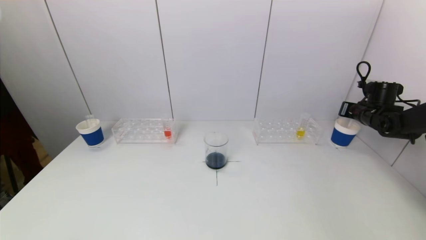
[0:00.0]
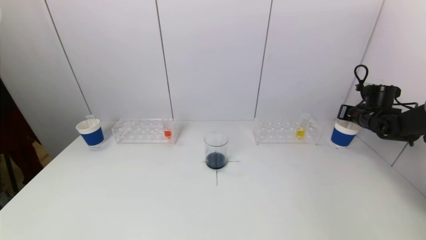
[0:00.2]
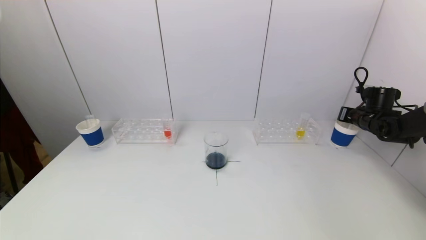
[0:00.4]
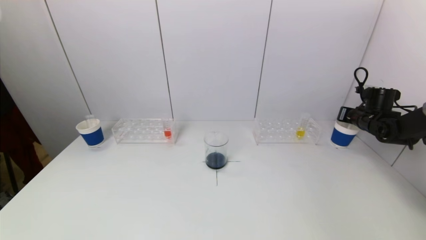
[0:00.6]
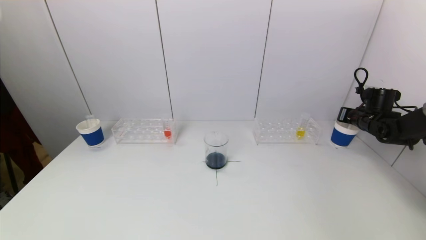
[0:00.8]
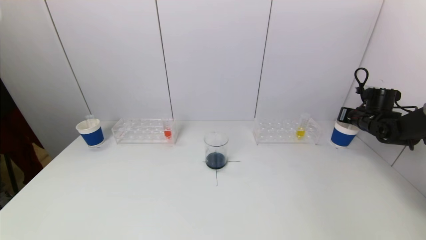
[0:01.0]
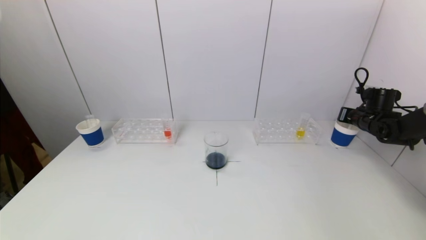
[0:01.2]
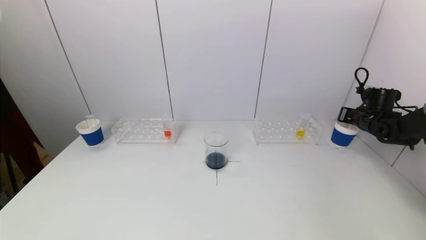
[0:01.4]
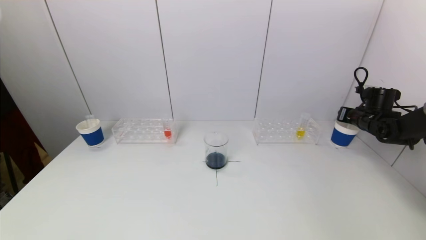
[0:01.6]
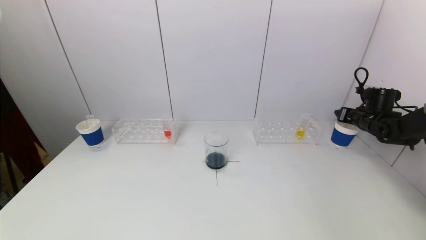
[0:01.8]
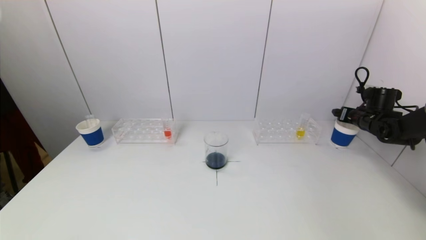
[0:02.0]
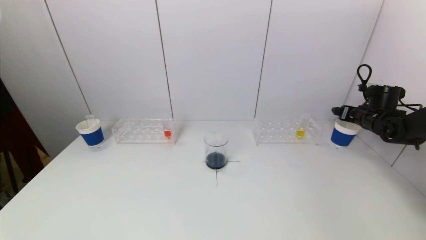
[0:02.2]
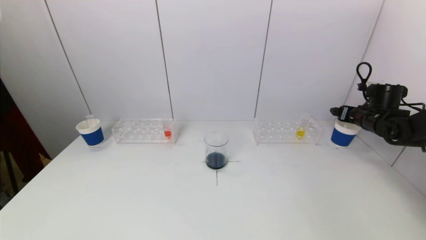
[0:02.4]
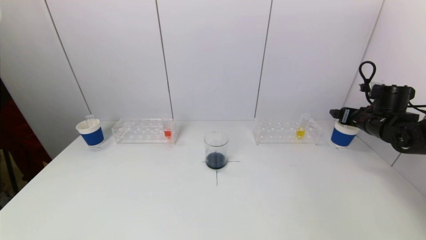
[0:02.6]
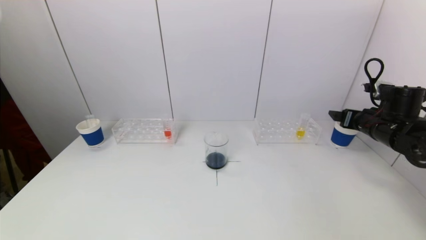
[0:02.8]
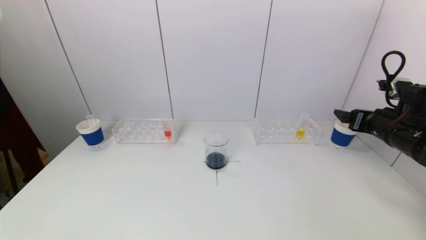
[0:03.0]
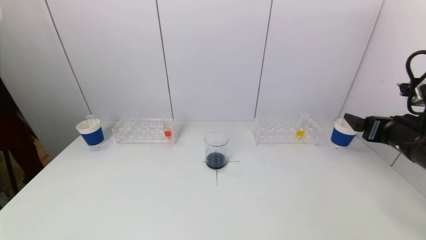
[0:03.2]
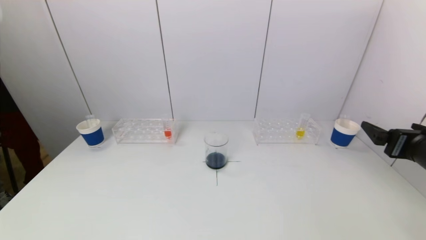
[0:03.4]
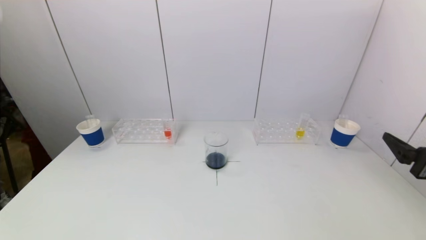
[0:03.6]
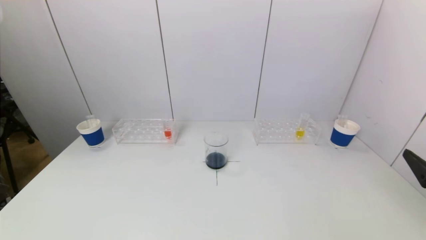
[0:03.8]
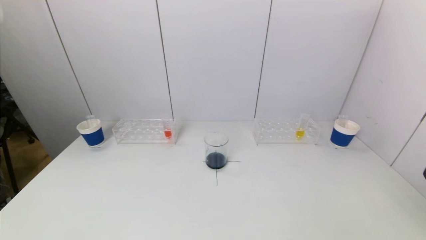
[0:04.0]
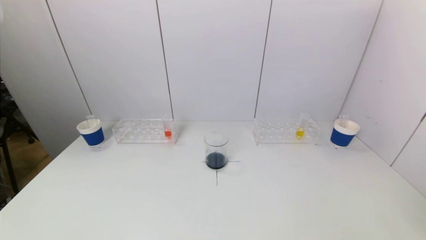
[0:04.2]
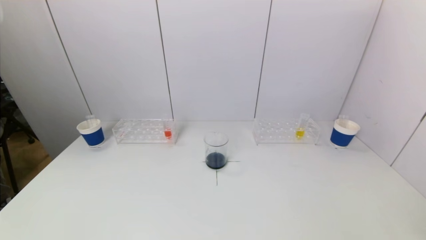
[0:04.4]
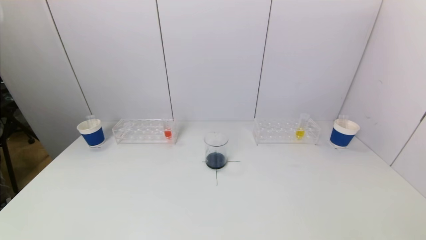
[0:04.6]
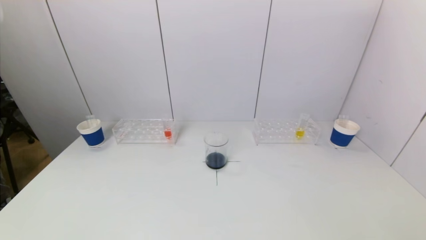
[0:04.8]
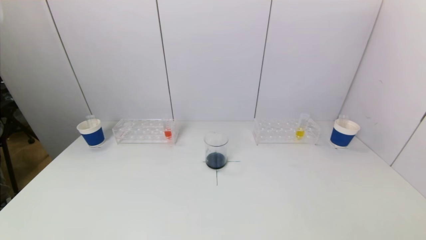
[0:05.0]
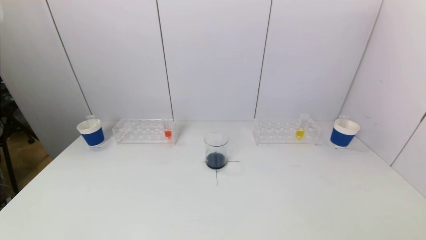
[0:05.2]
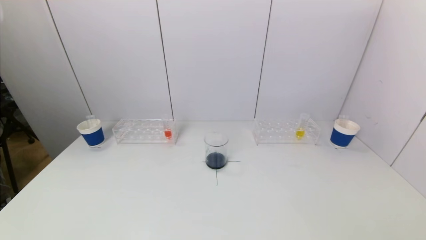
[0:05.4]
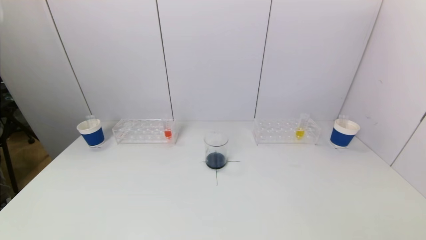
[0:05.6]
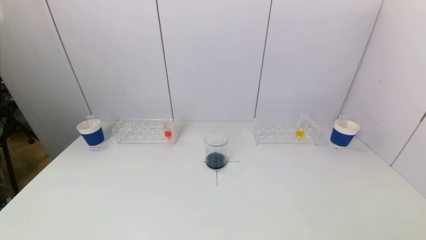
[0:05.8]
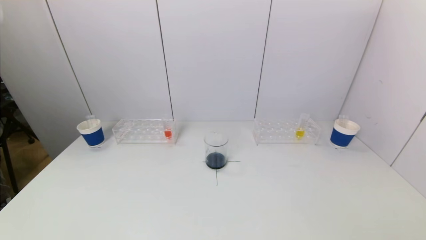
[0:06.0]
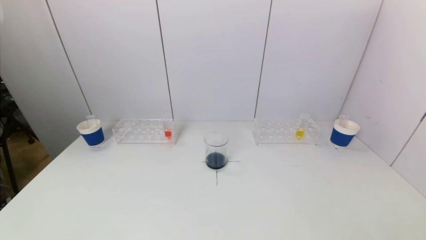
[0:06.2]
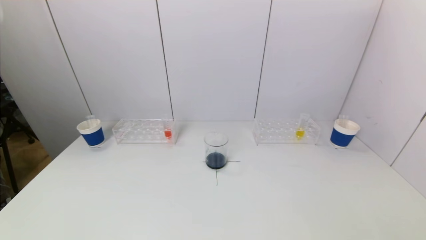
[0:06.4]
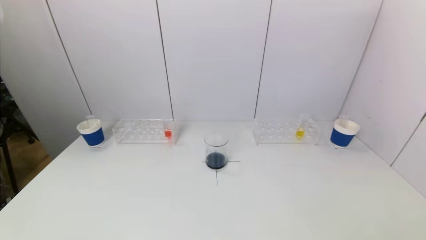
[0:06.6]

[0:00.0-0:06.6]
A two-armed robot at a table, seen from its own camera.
Task of the whole recording: pick up a test tube with pigment on left test tube rack and a test tube with pigment on right test tube rack by grippers and pour them into the beaker.
Step, 0:00.0 to 0:02.0: Place the test tube into the paper cup with the right gripper.
0:00.0 to 0:01.6: There are only small adjustments of the grippers.
0:01.6 to 0:03.2: The right gripper travels backward, to the left and upward by about 25 cm, and opens up.
0:03.2 to 0:05.0: The right gripper travels backward and downward by some 30 cm.

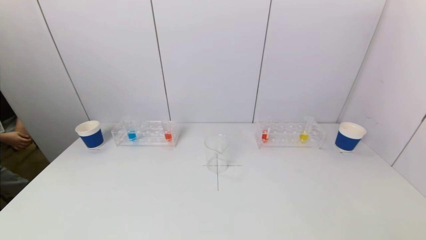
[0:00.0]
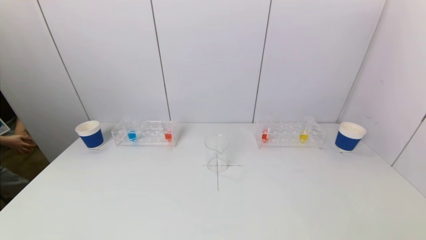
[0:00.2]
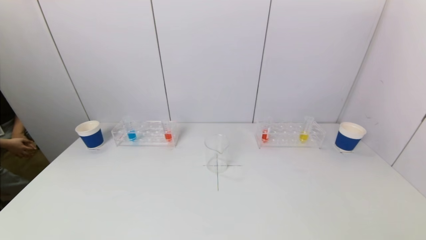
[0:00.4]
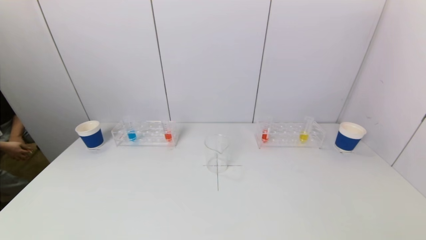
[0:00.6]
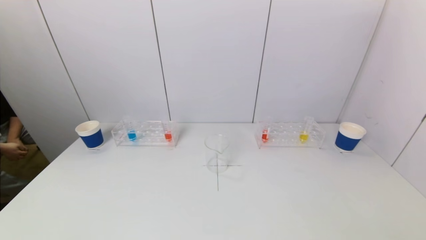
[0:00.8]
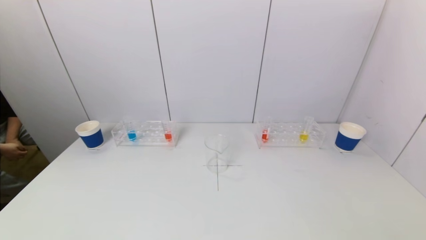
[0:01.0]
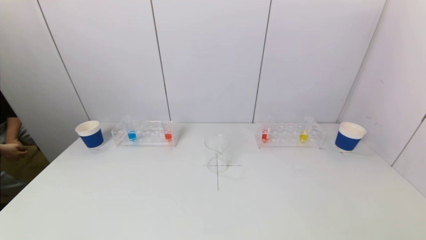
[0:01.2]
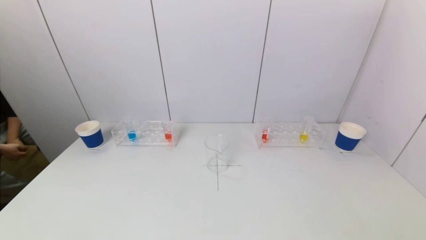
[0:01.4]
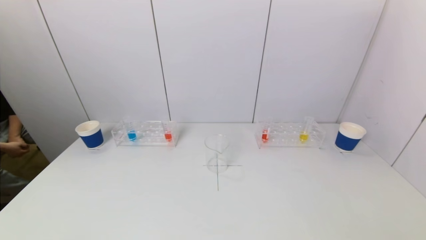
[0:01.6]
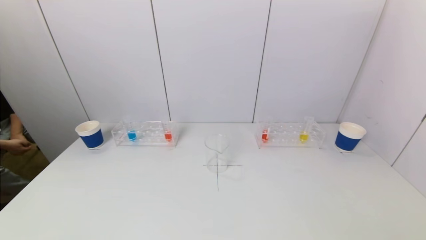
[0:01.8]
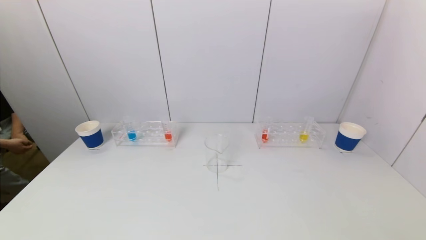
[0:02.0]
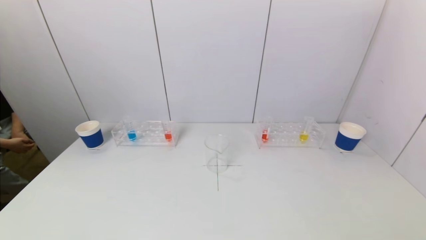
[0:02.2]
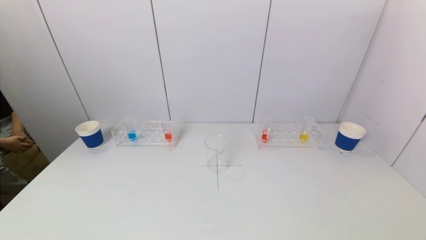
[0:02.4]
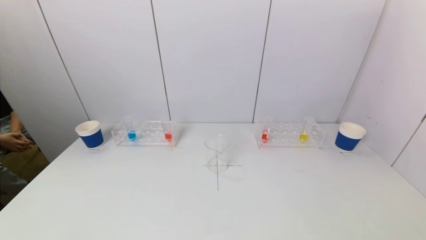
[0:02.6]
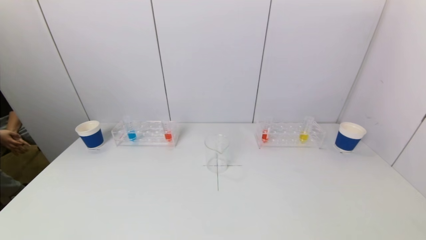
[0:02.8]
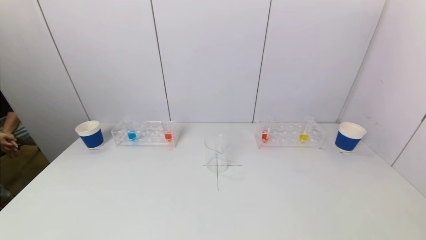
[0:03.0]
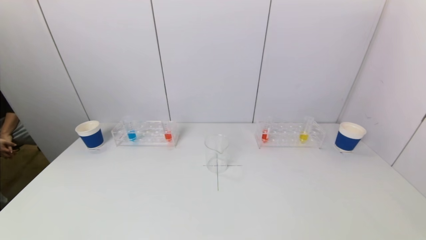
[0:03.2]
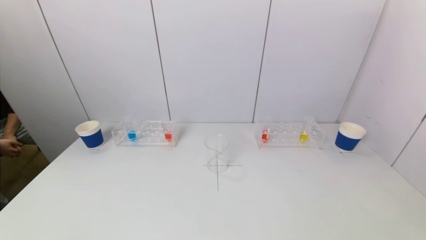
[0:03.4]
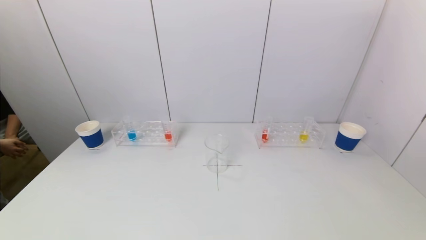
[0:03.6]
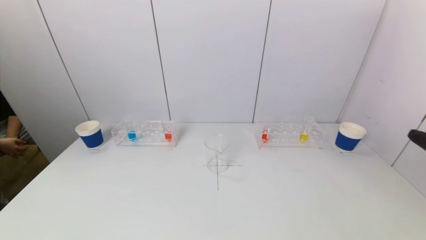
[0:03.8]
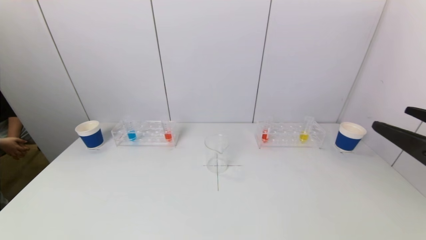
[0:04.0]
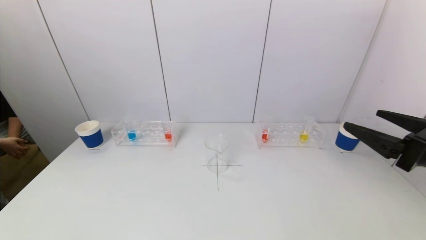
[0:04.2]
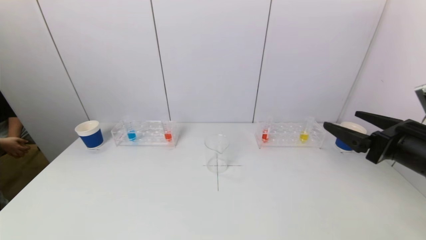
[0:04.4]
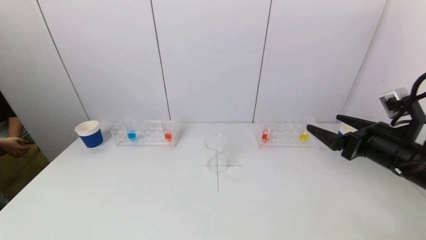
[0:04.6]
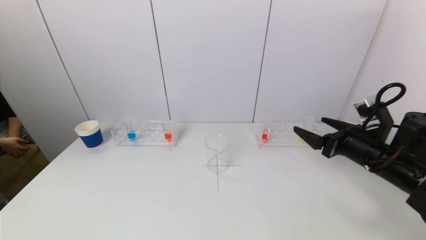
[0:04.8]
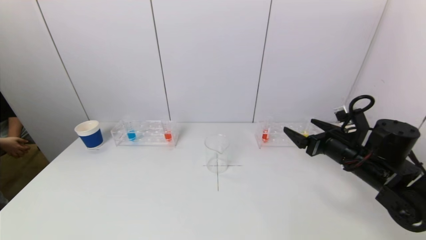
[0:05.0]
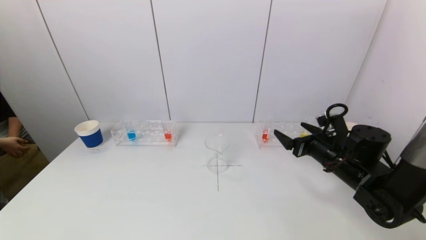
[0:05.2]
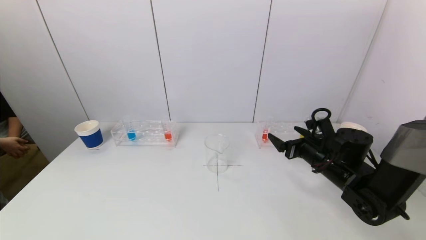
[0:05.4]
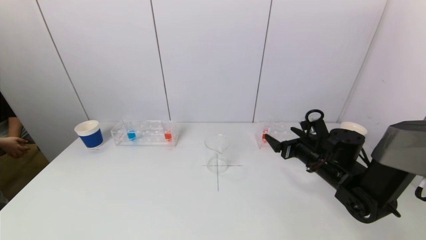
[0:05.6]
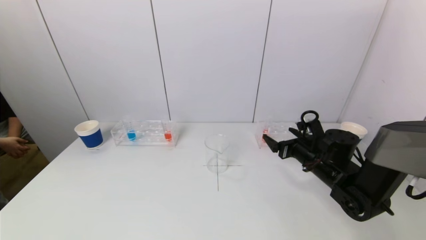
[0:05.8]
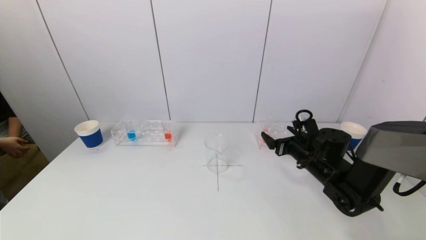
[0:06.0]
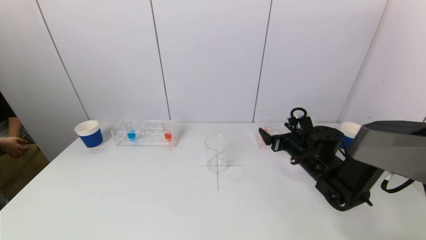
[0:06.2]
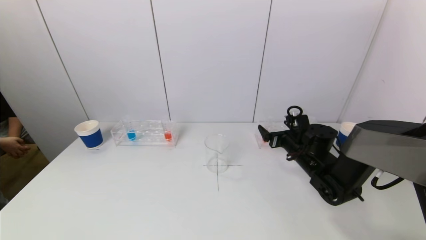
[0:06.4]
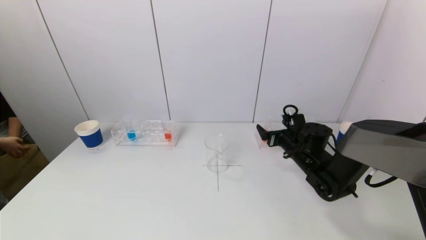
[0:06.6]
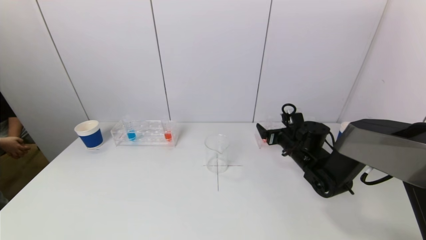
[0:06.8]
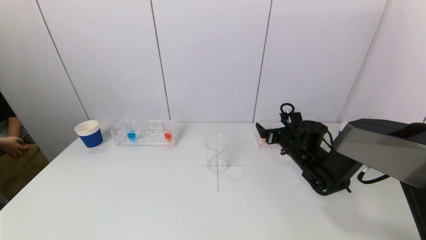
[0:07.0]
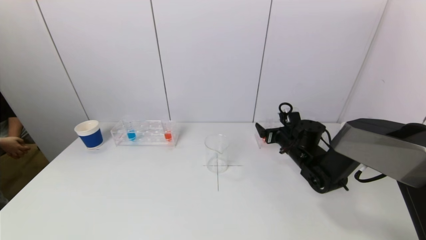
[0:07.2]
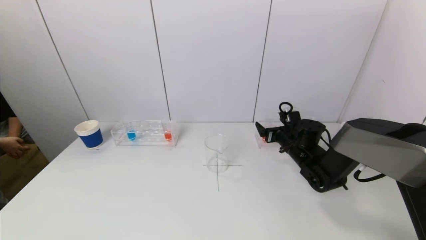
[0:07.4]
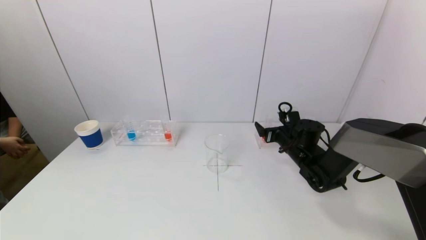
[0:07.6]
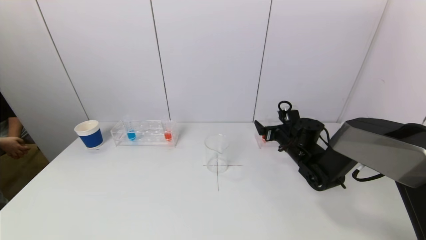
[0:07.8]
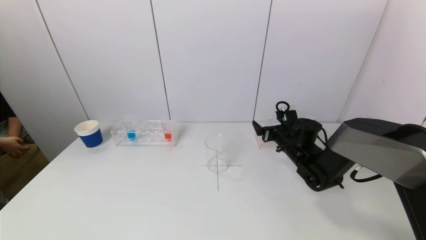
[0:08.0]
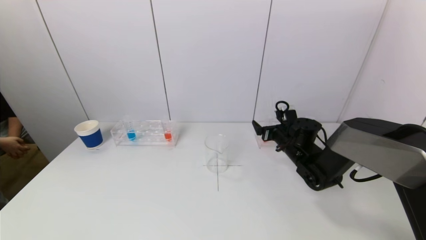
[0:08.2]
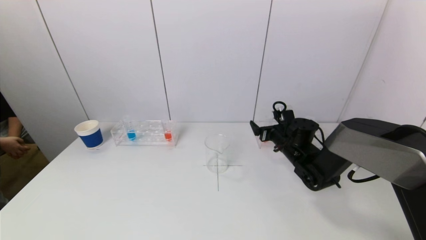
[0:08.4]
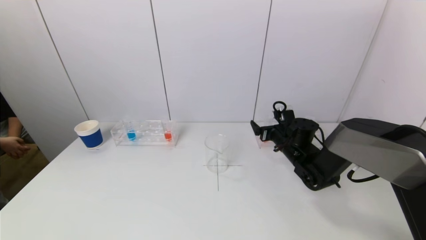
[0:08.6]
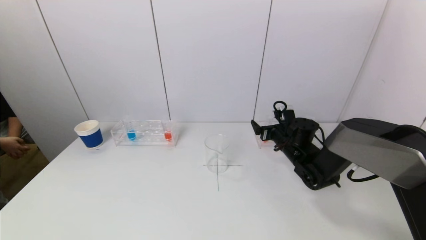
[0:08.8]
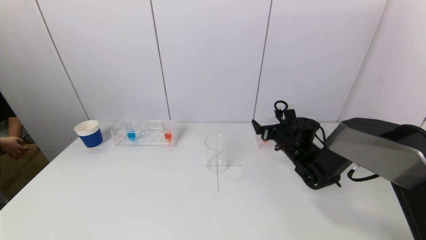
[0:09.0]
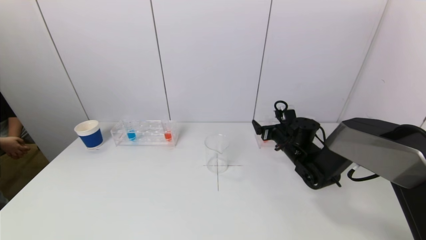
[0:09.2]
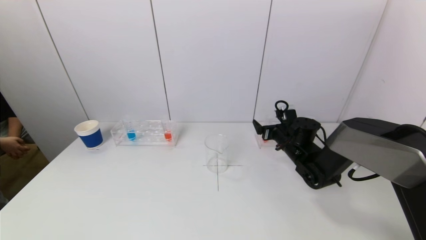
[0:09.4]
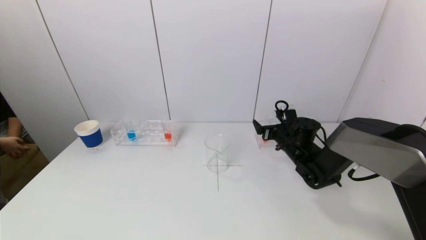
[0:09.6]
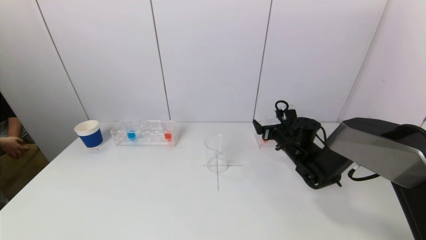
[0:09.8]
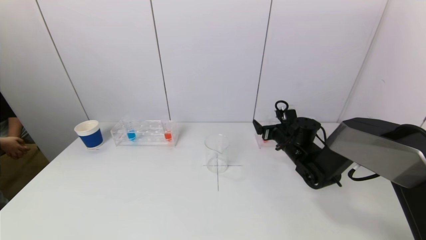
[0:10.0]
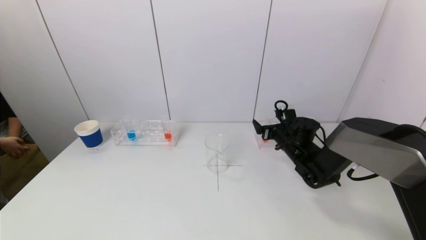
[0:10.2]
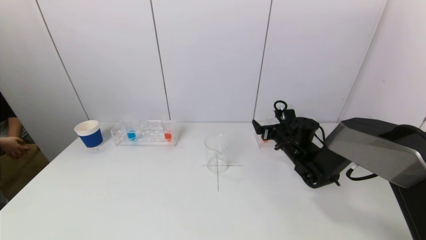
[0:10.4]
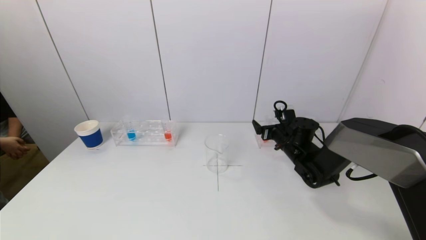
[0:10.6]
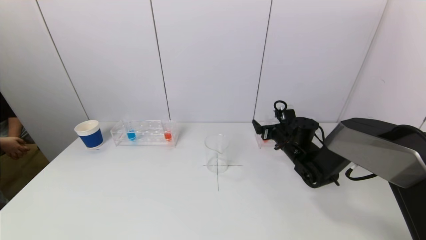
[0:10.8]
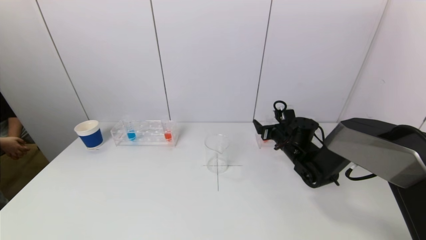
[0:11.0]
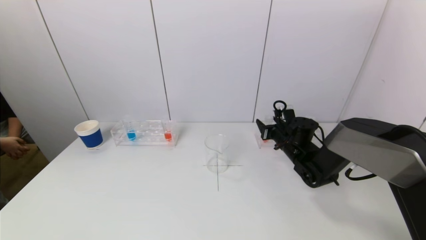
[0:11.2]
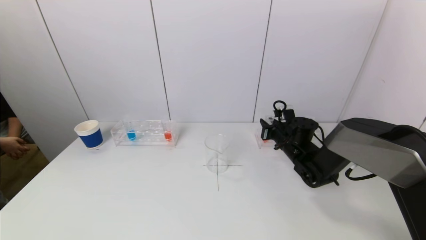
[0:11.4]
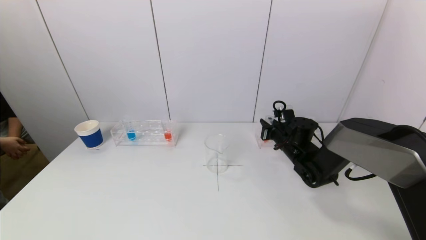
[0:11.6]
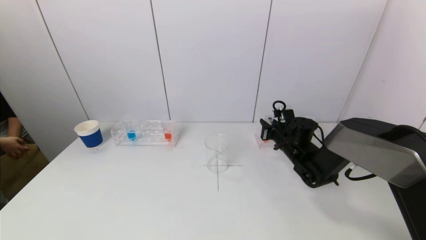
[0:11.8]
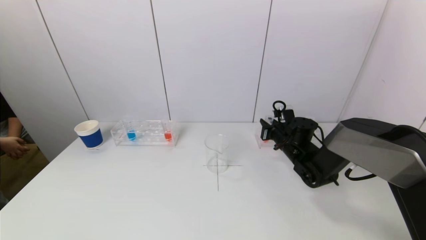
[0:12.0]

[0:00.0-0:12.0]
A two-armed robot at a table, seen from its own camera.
Task of the whole recording: pick up a test tube with pigment on left test tube rack and a test tube with pigment on right test tube rack by grippers and pour them into the beaker.
Step, 0:00.0 to 0:11.6: Grasp the red reagent with the right gripper.
0:00.0 to 0:01.6: The two grippers keep their place.
0:03.0 to 0:04.4: The right gripper heads forward, covering some 25 cm.
0:04.4 to 0:06.0: The right gripper heads forward, downward and to the left, covering approximately 20 cm.
0:06.0 to 0:07.6: The right gripper is displaced forward by about 5 cm.
0:07.6 to 0:09.0: The grippers make only small movements.
0:09.0 to 0:10.4: Neither gripper changes place.
0:10.4 to 0:12.0: The right gripper closes.
